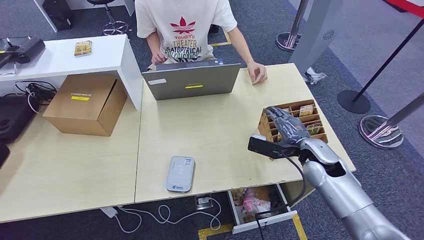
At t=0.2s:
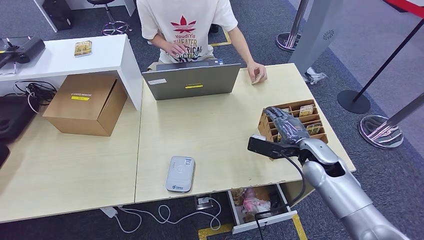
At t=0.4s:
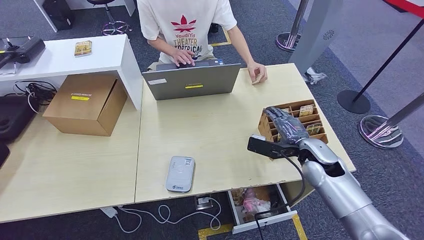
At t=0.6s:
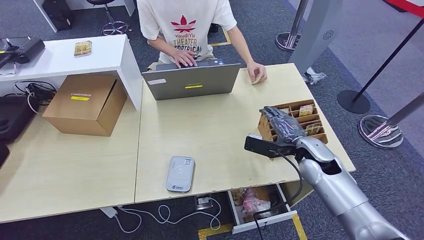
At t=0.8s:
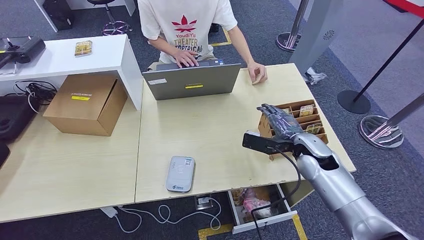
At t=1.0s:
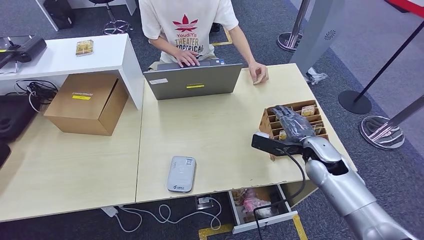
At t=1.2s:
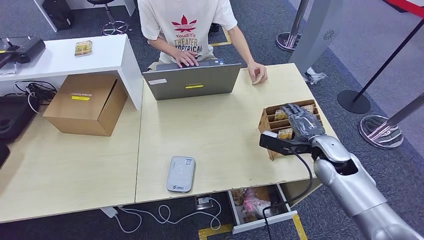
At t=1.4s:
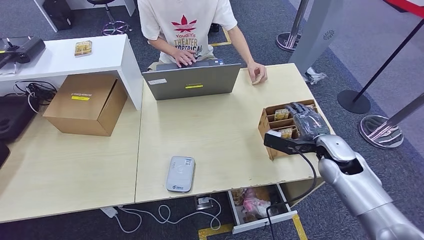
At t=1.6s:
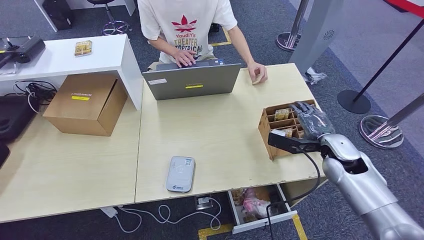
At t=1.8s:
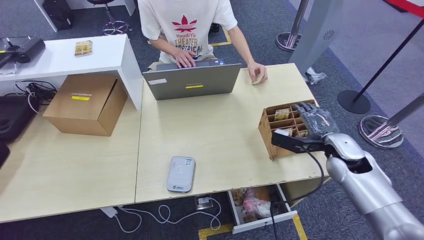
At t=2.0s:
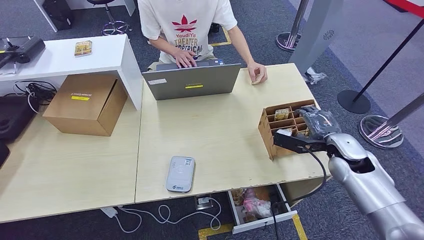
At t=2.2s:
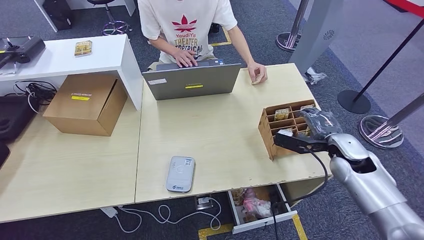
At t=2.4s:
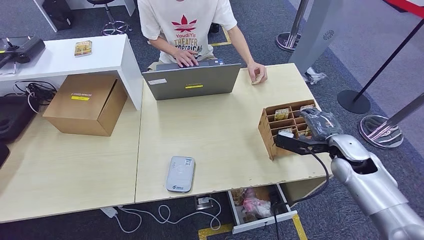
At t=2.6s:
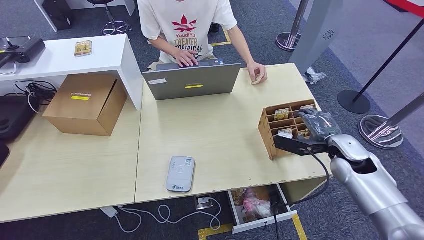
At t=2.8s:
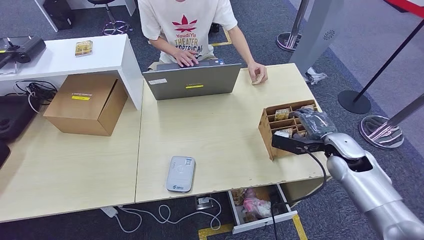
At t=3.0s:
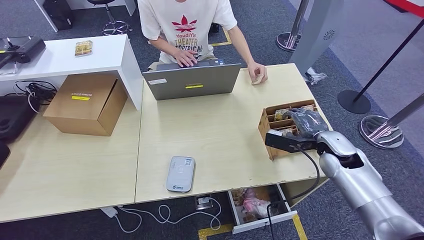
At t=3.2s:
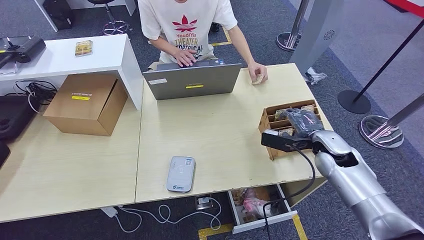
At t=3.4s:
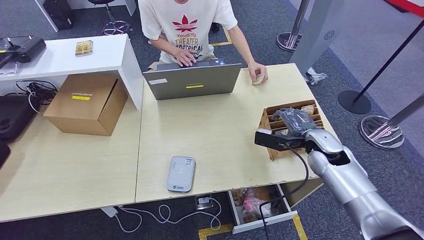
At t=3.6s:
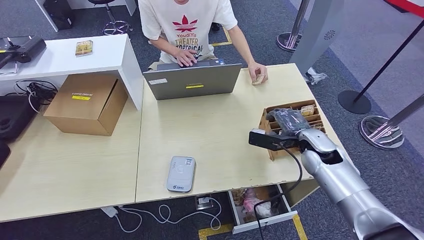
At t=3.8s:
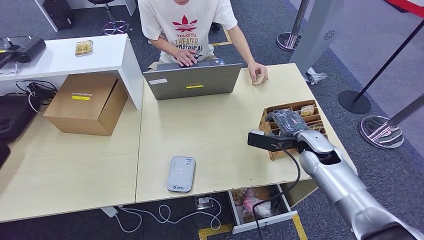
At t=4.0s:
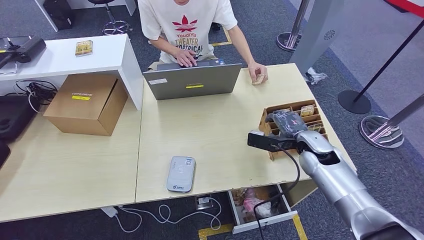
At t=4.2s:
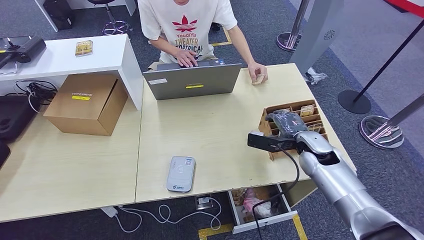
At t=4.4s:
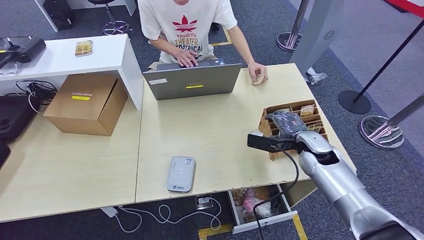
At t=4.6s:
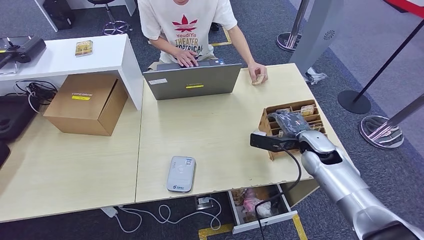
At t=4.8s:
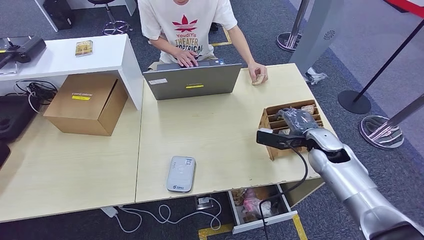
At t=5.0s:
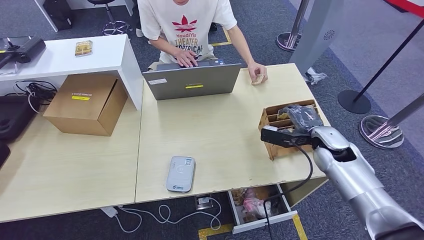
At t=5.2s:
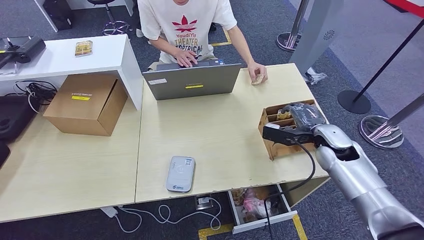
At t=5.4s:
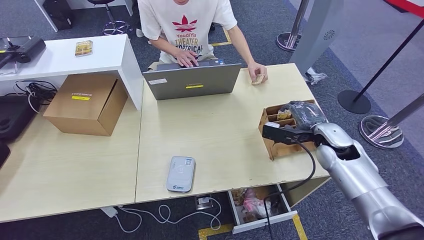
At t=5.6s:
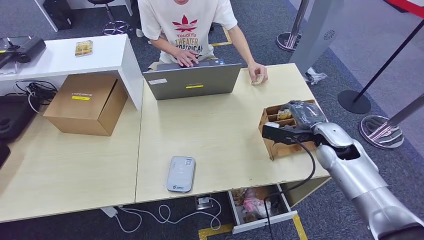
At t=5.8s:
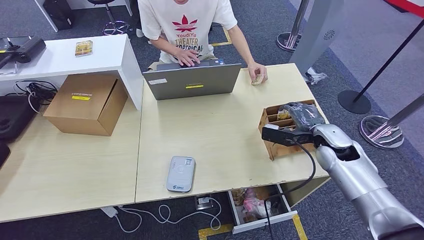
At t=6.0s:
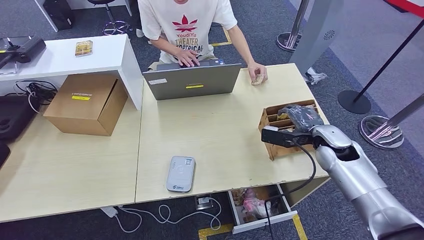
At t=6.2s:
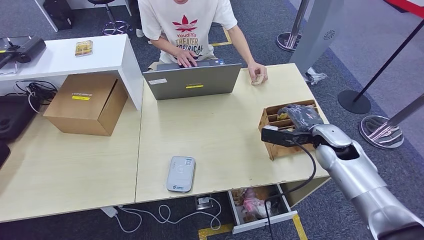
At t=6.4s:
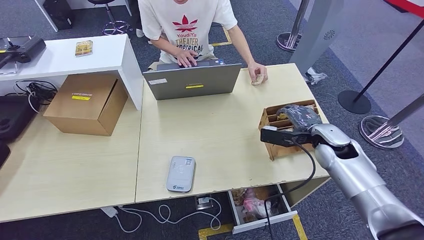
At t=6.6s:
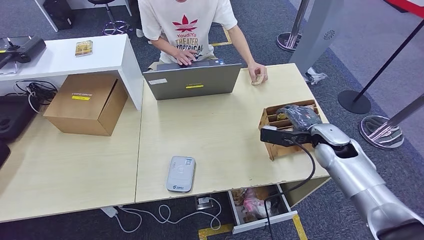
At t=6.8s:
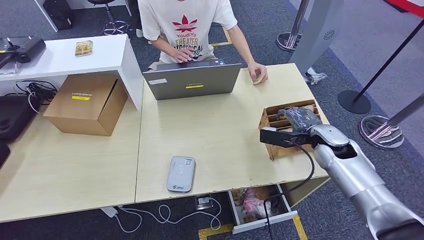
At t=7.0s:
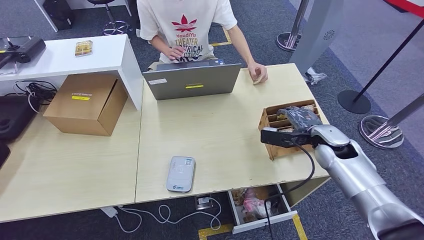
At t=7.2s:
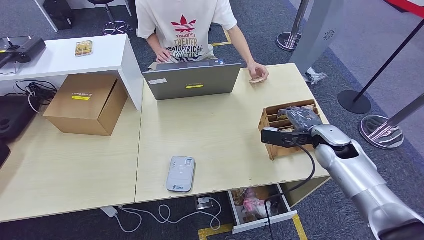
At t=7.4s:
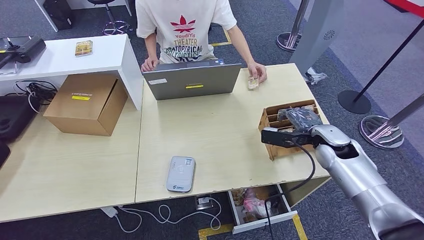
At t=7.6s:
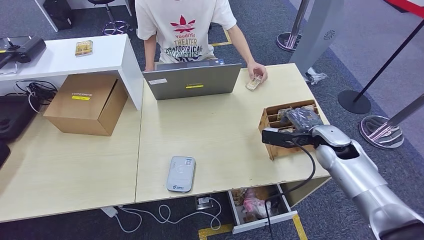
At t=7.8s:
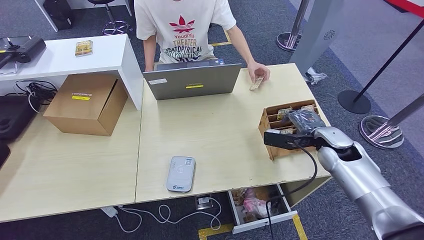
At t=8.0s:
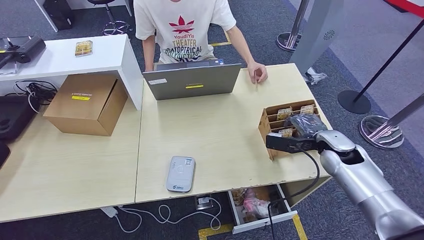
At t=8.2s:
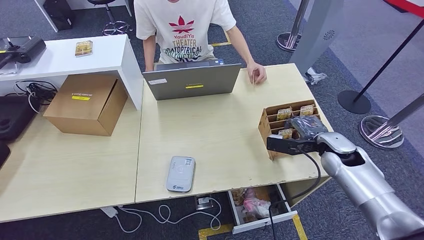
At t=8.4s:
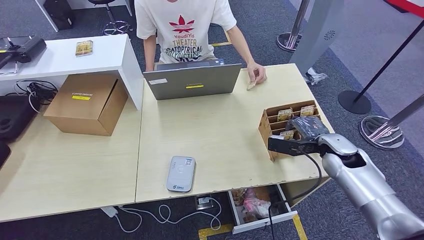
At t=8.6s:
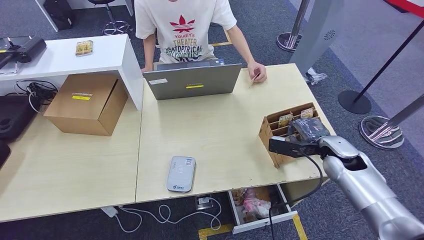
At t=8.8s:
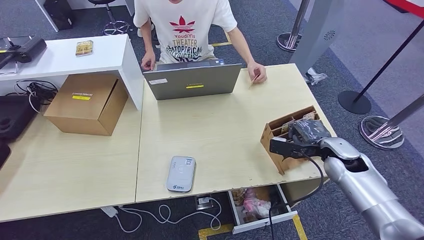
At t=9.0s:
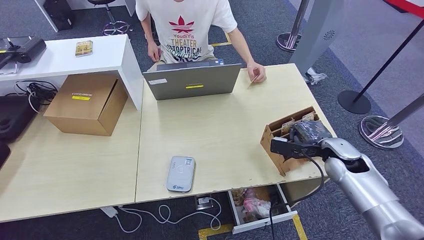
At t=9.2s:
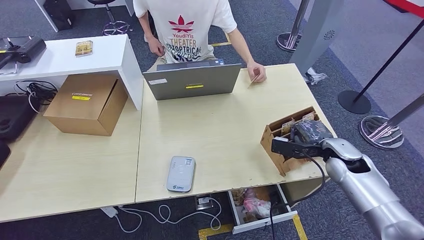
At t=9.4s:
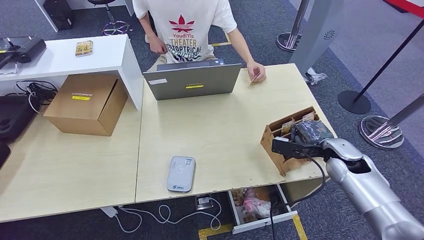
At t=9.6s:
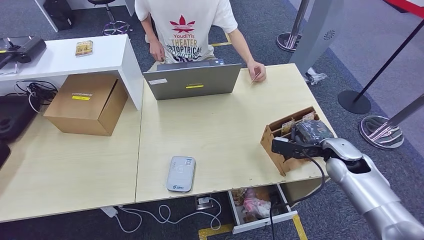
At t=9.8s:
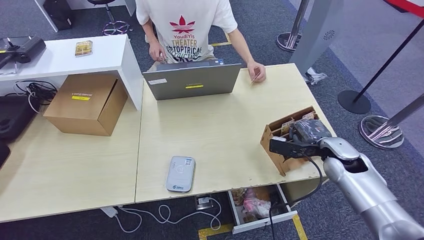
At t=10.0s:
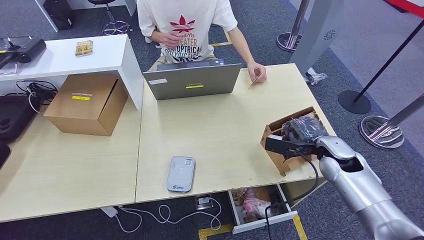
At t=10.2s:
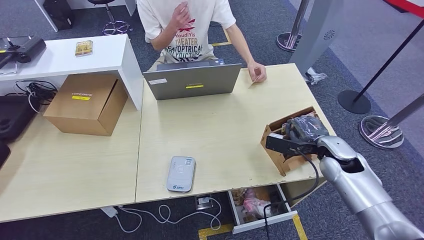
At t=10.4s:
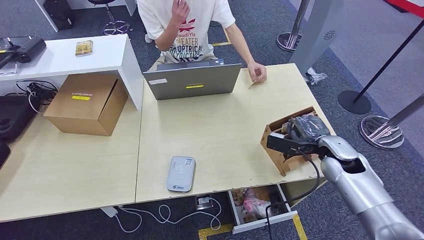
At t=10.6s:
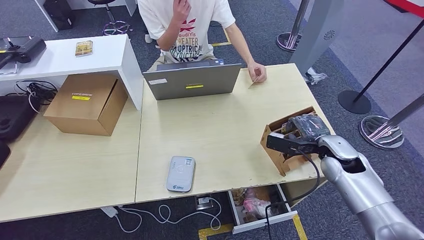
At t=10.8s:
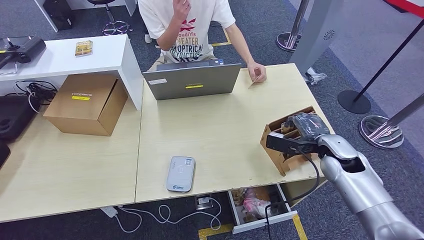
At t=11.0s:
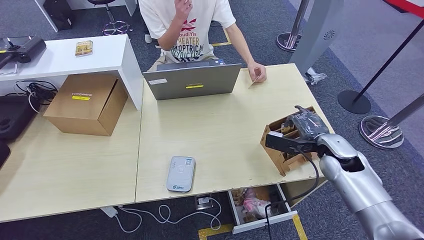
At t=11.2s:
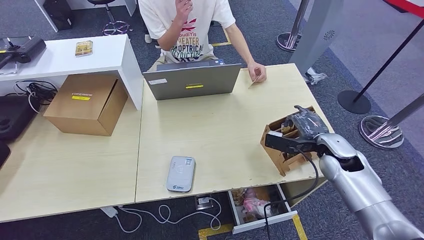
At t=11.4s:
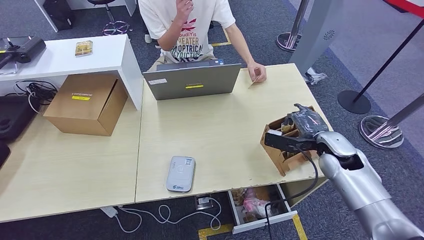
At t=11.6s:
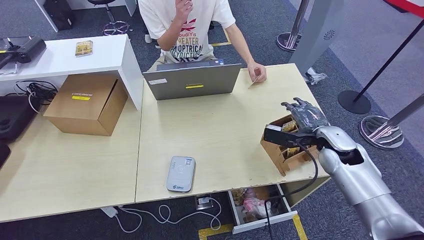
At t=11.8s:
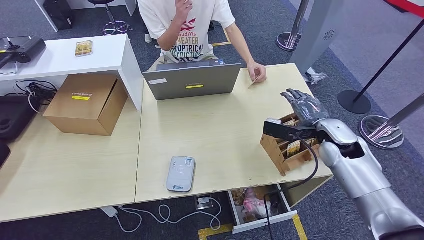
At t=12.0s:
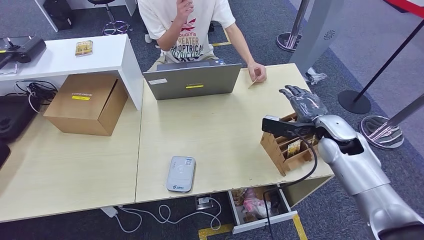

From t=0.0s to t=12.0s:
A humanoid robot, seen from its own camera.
From t=0.0s to t=1.6s: The right hand travels to the right by roughly 5 cm.
From t=1.6s to t=3.0s: There are only small adjustments of the hands.
From t=3.0s to t=4.4s: The right hand ends up roughly 5 cm from where it was.
From t=4.4s to t=6.0s: There are only small adjustments of the hands.
From t=6.0s to t=7.6s: Both hands stay put.
From t=7.6s to t=10.4s: The hands stay close to where they were, moving slightly.
From t=10.4s to t=12.0s: The right hand moves some 5 cm.

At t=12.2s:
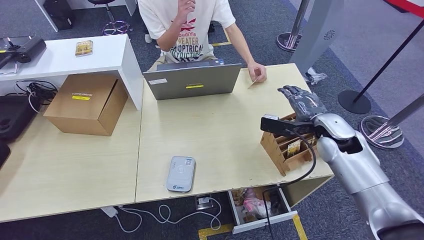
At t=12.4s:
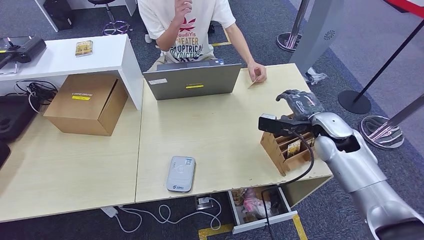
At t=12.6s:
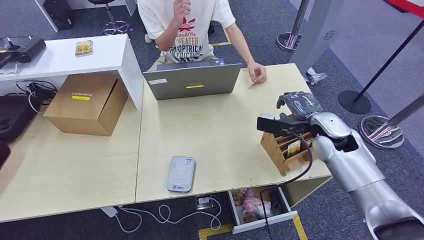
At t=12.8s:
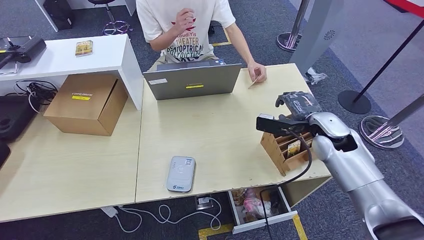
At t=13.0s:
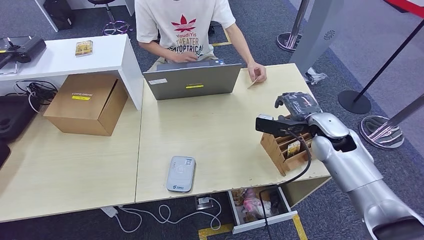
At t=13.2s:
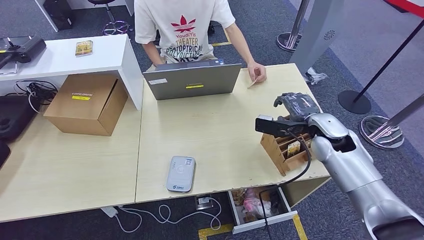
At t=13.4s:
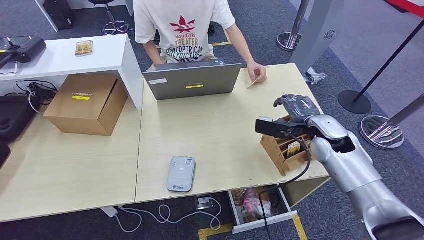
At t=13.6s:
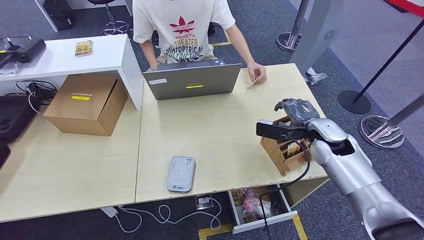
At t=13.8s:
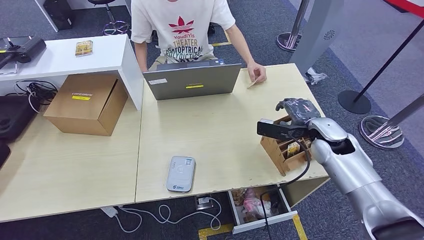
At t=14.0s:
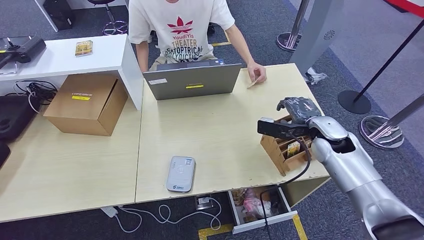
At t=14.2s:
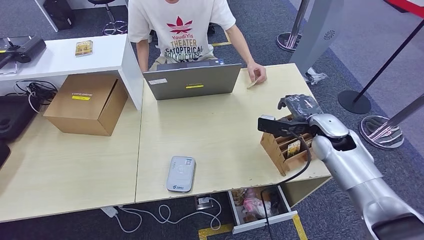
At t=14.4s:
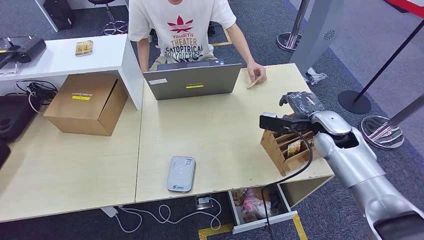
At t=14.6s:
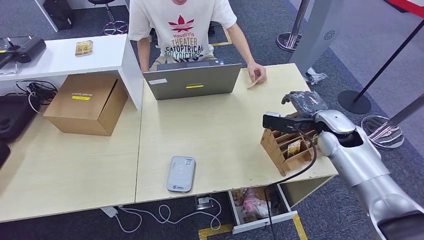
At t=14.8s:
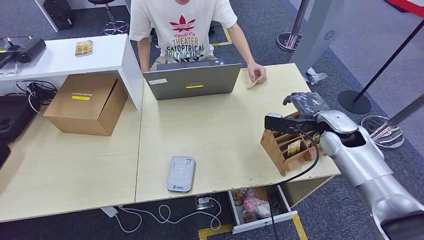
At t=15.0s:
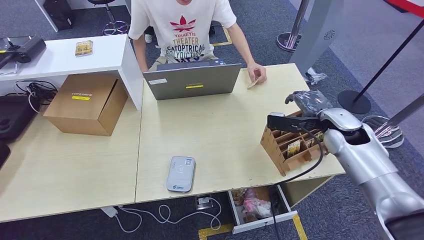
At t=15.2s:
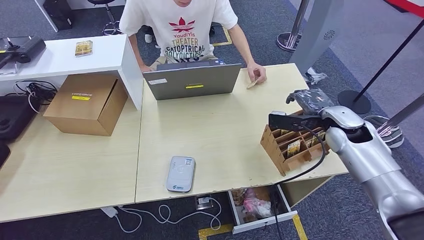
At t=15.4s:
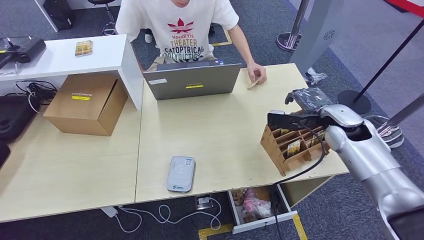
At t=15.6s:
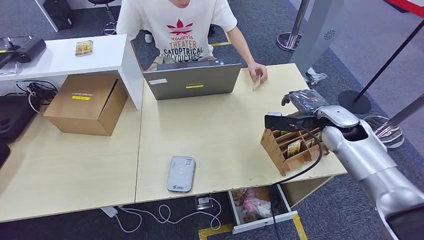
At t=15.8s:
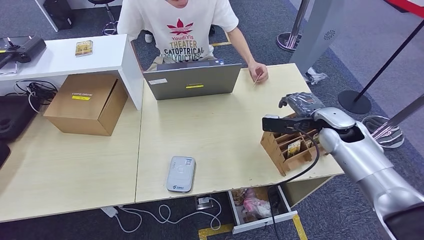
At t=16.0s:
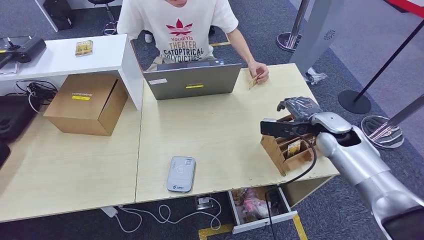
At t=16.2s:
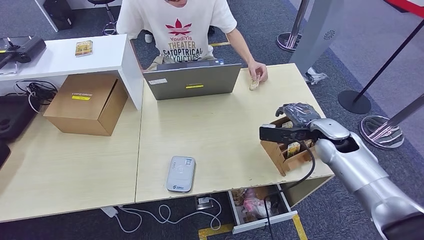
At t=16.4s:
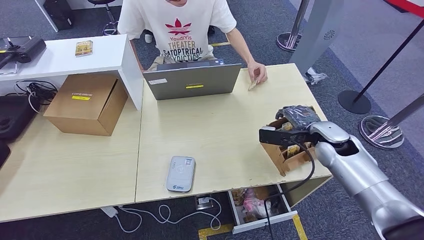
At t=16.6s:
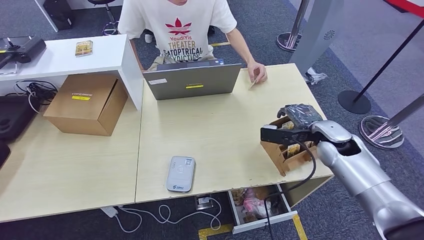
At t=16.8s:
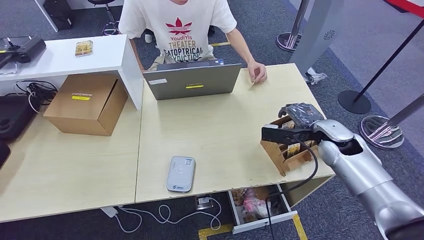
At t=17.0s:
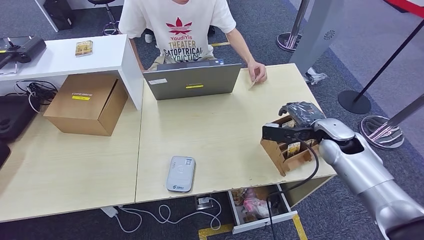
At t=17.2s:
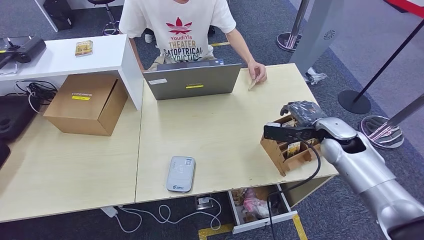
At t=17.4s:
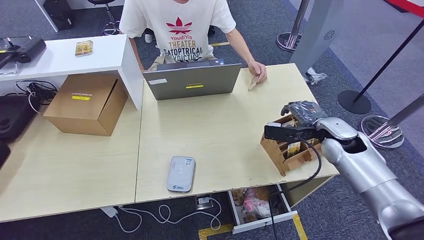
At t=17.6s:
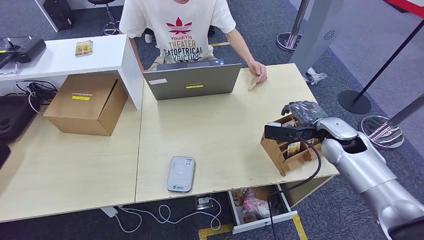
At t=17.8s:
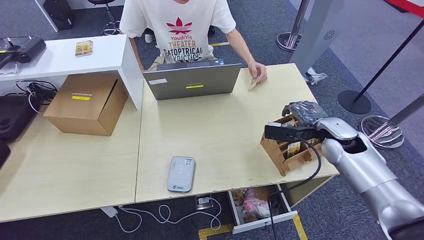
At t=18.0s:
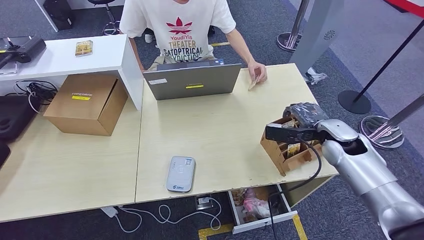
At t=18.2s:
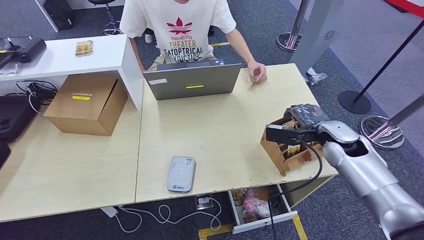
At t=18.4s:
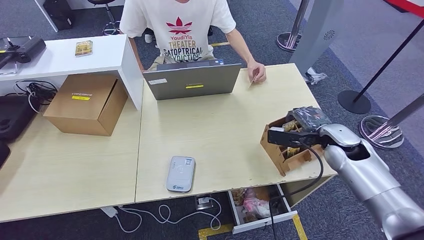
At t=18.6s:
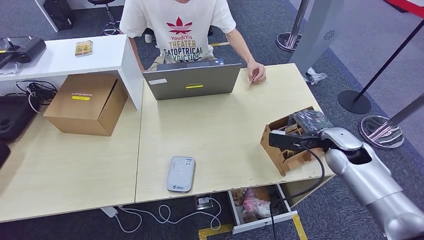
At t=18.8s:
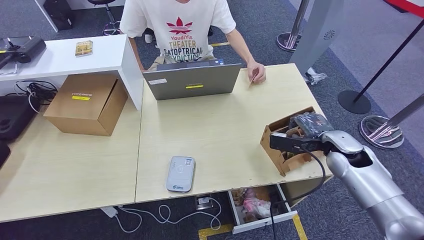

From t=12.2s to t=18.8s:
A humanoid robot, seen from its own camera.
From t=12.2s to t=13.8s: The hands make only small movements.
From t=13.8s to t=15.4s: The right hand moves some 5 cm.
From t=15.4s to t=17.2s: The hands move only a little.
From t=17.2s to t=18.8s: The hands stay close to where they were, moving slightly.
